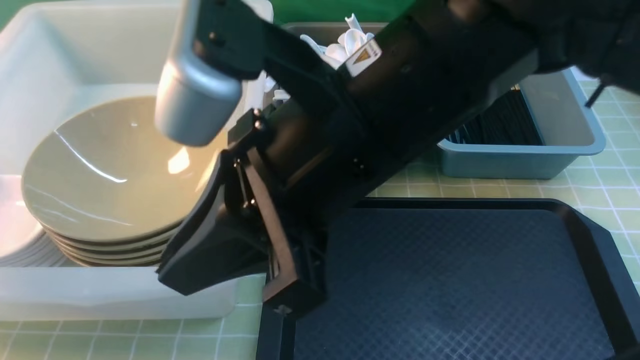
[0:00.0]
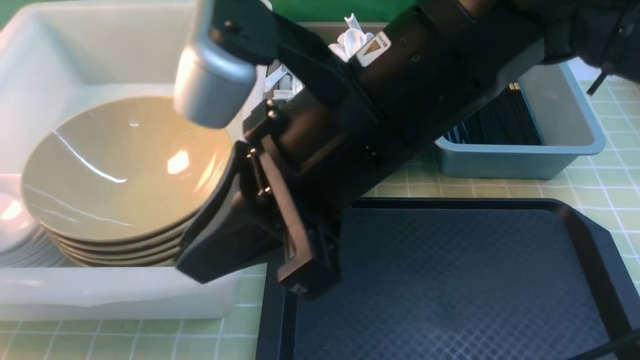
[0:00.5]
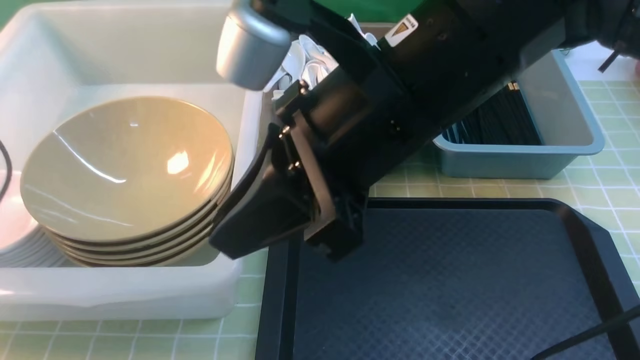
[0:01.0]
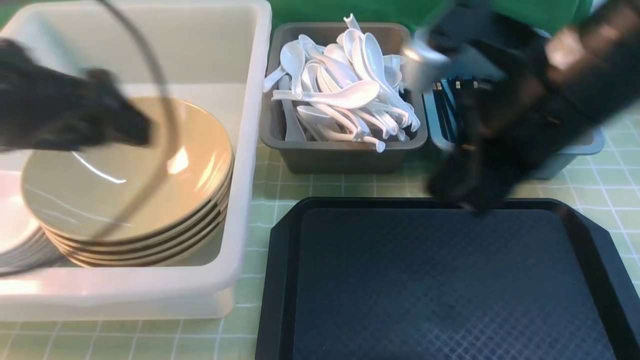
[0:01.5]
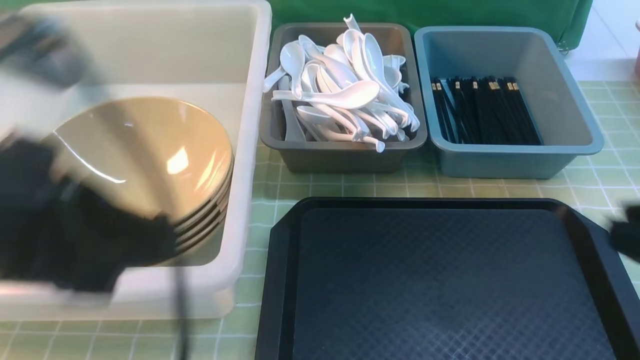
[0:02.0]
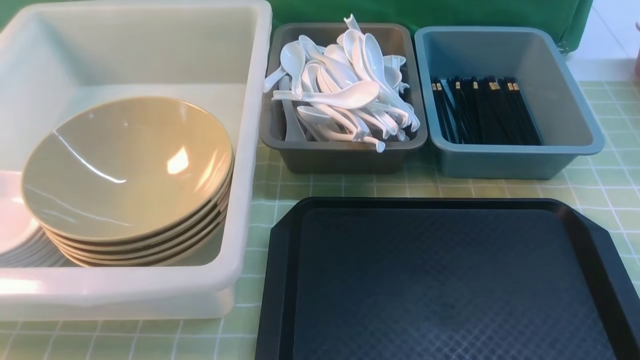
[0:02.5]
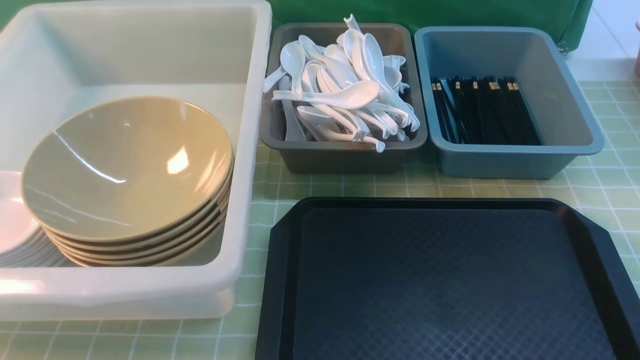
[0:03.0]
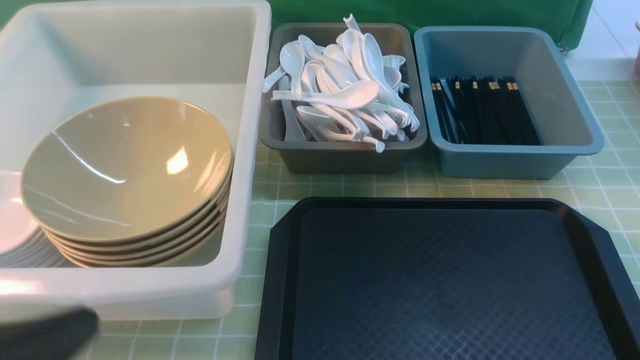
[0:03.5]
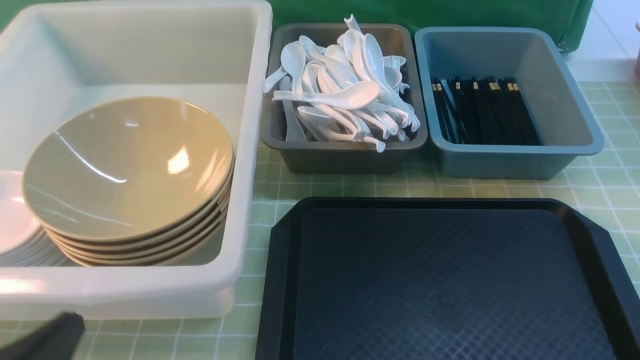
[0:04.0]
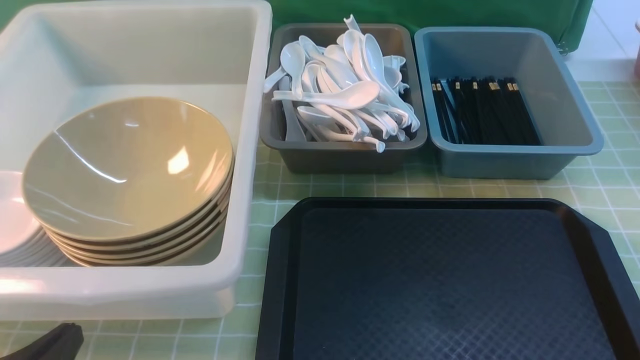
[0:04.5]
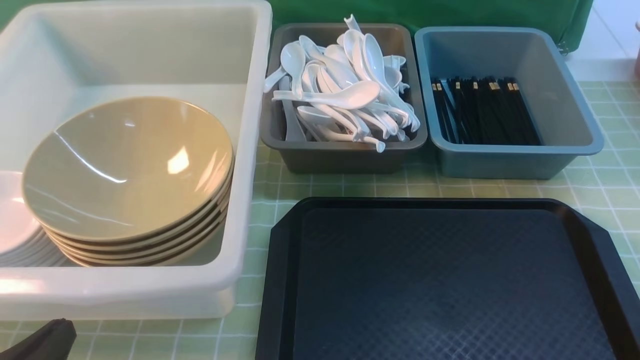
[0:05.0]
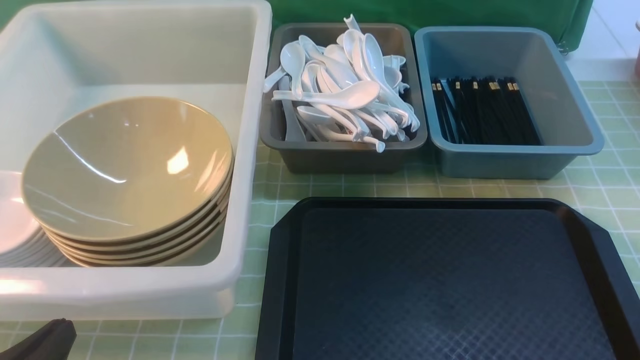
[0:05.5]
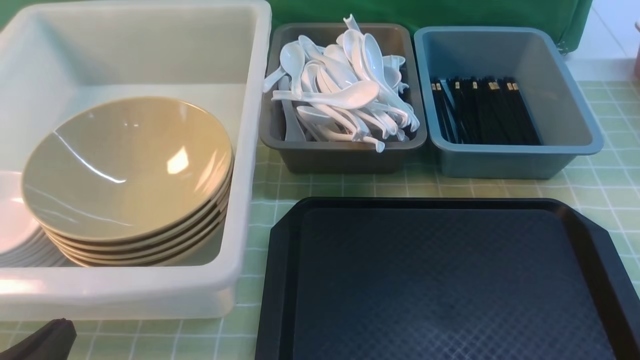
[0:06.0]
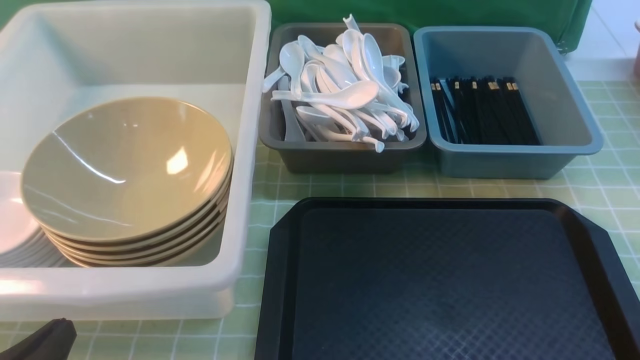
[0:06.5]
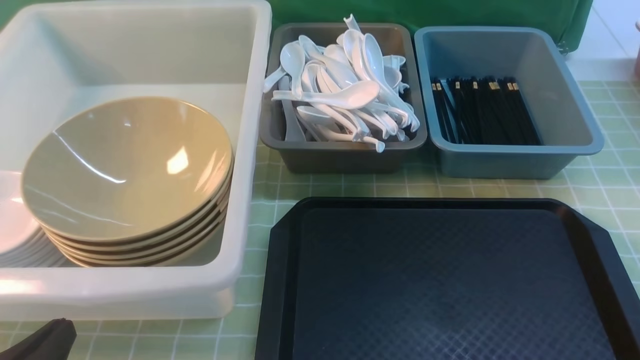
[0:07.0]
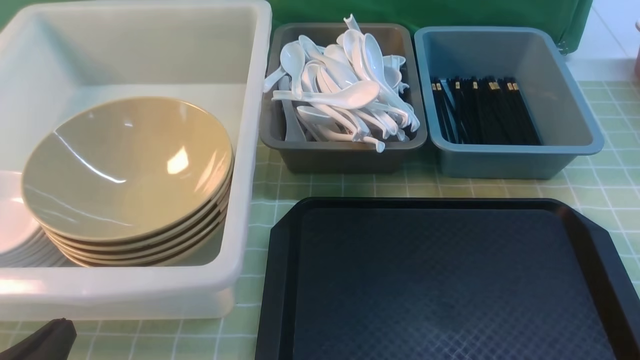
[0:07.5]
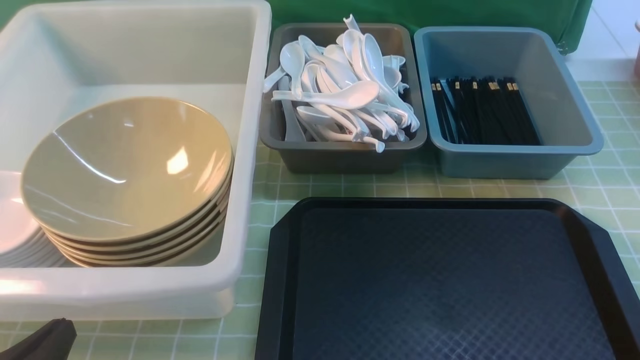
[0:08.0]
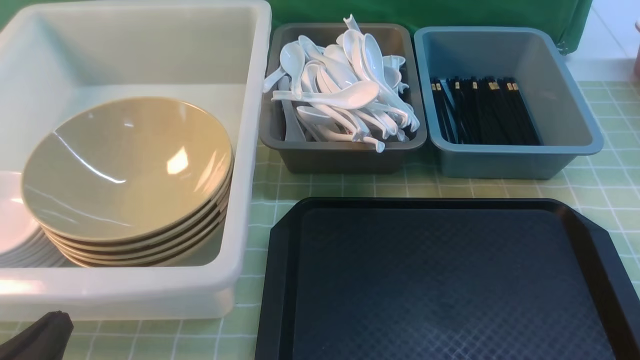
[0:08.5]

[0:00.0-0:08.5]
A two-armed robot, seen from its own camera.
Task of the whole recording: on green table put chopsticks spoon bowls plates into blue grey white boxes.
Step, 0:00.0 to 0:01.0: use the left arm to put the plate into the large storage box on the left.
0:00.0 to 0:02.0: Both grippers travel together to the right and backward, about 25 cm. The left gripper opens, then closes again.
0:02.0 to 0:04.0: The left gripper goes about 20 cm downward. The right gripper shifts approximately 10 cm downward and backward.
0:06.5 to 0:08.5: The two grippers keep their place.

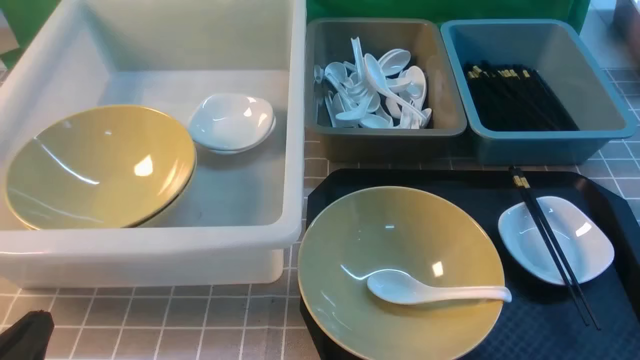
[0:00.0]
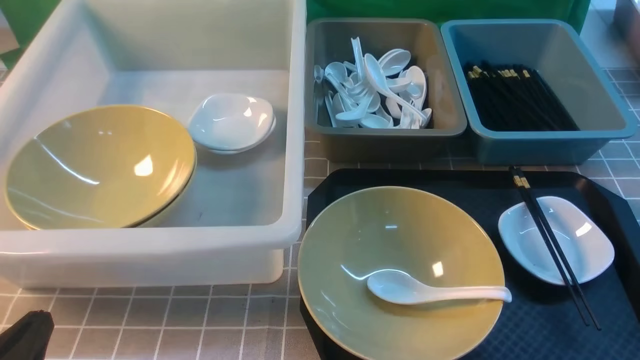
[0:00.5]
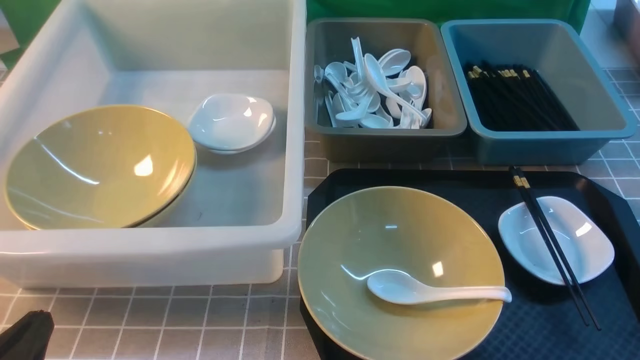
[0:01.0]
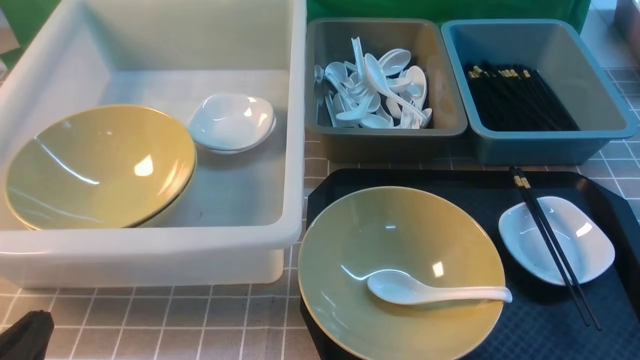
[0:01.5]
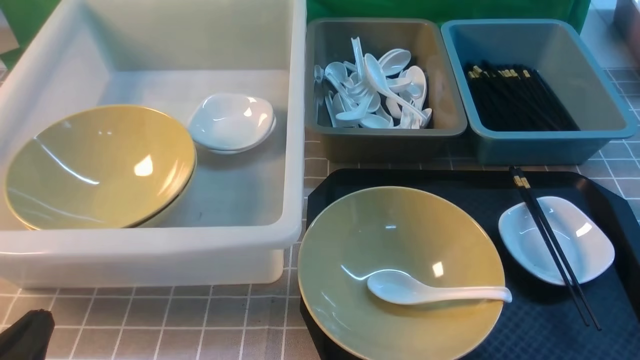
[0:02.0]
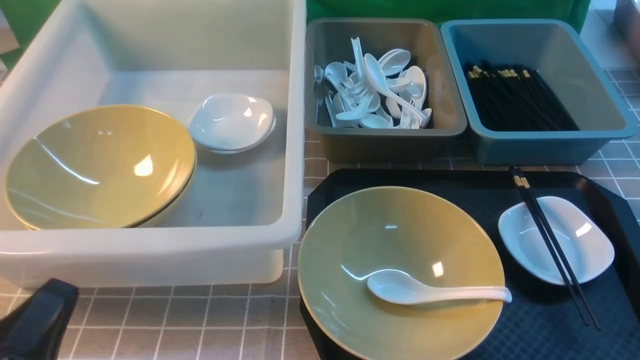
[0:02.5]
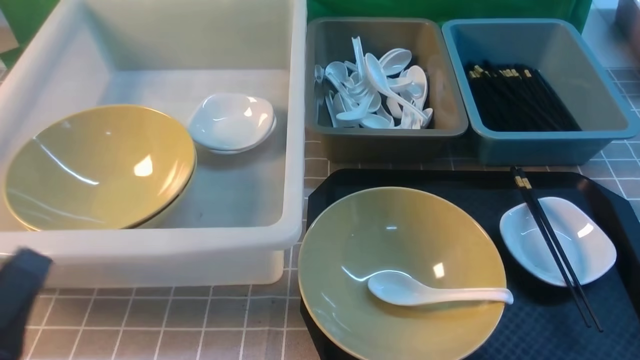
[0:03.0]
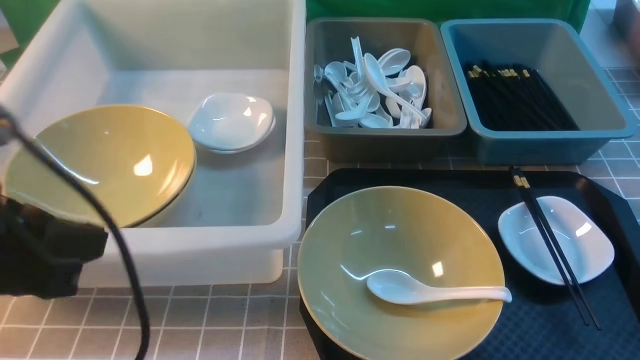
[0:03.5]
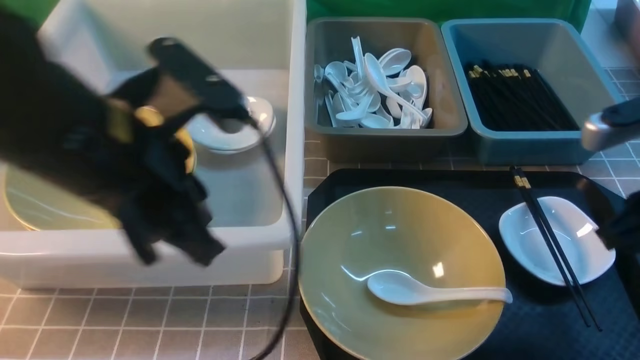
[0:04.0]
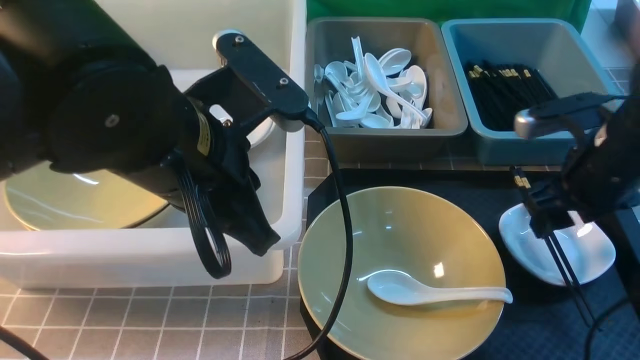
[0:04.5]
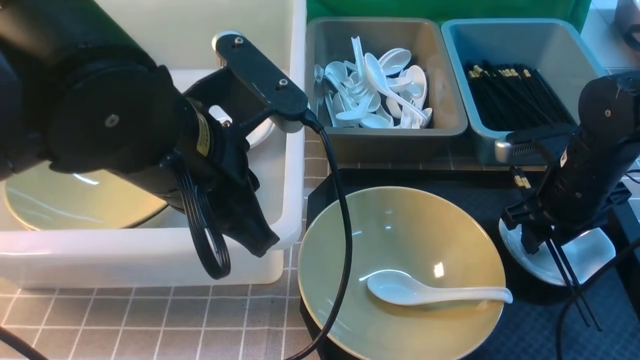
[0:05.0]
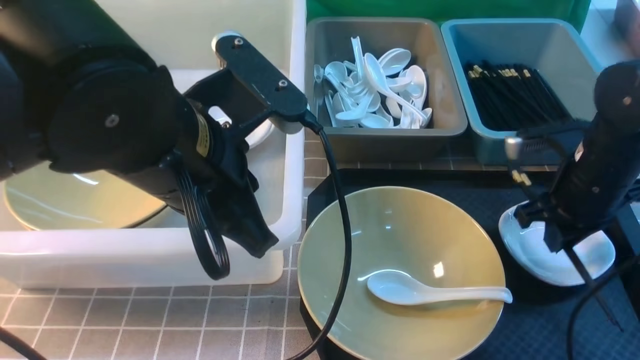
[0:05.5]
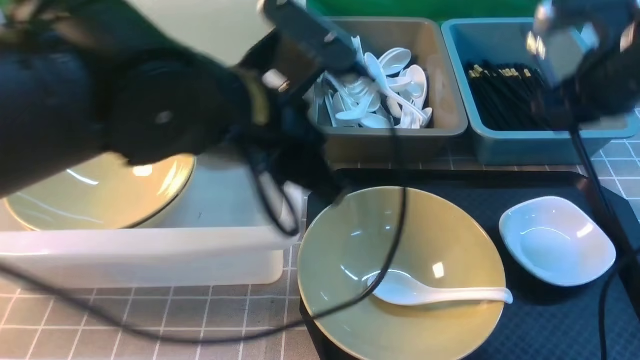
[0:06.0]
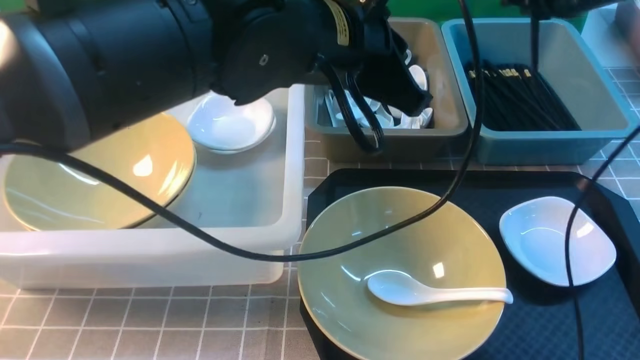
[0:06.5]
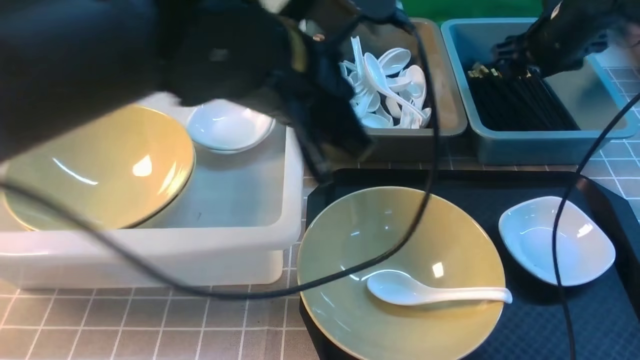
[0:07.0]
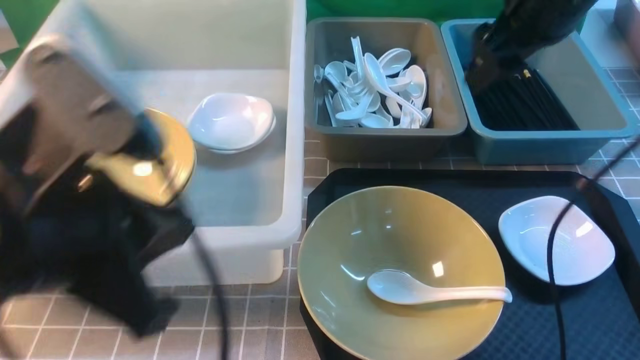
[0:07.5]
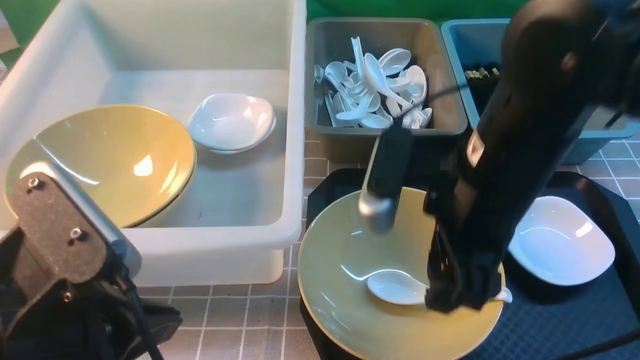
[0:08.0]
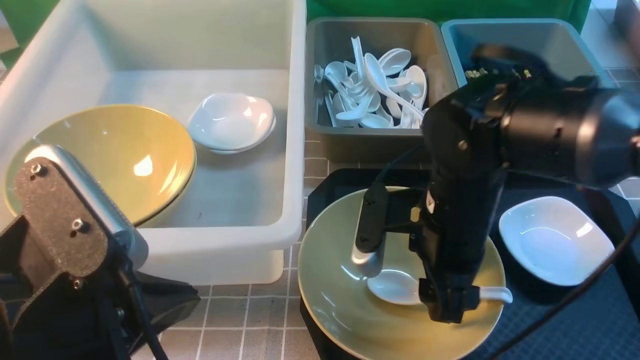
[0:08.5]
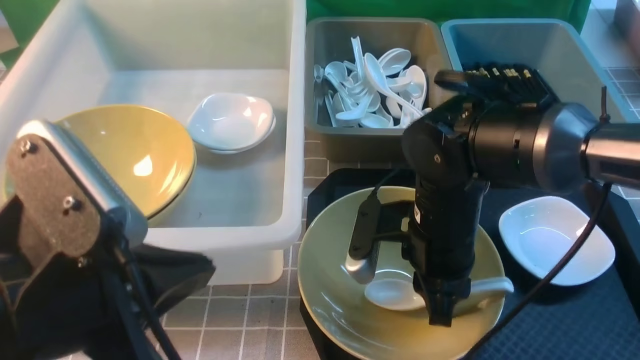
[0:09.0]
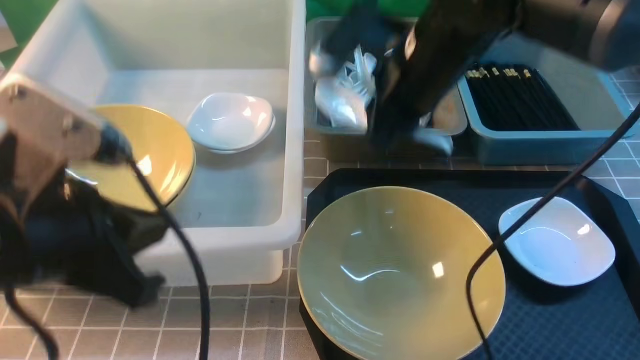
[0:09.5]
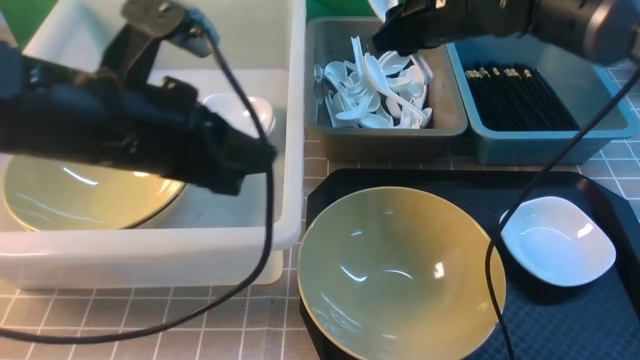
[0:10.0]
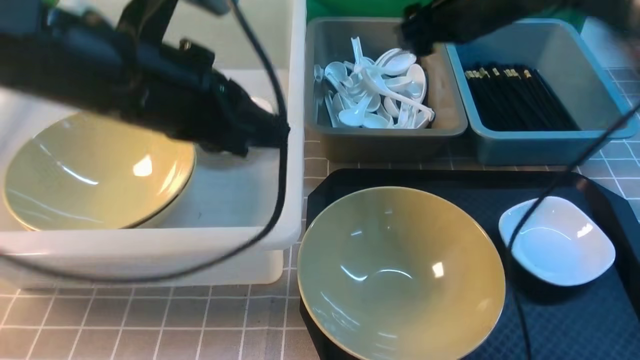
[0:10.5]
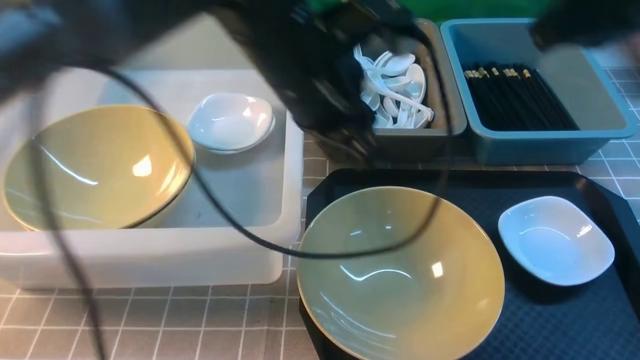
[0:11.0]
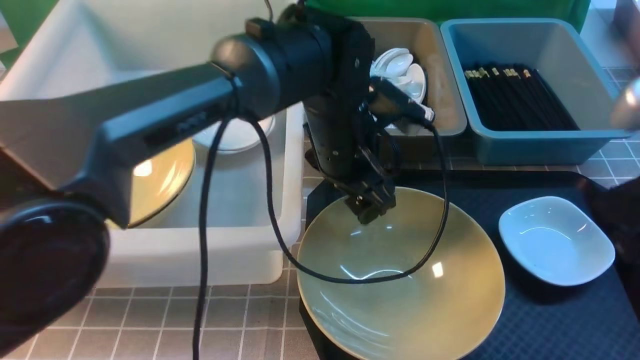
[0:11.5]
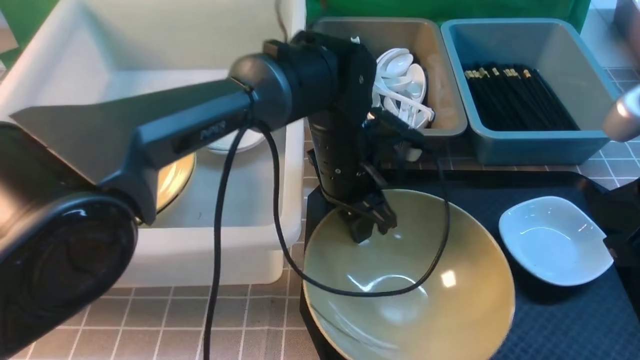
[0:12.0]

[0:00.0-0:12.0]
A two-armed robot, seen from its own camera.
Task of the whole recording: on grey table put chopsticks spoon bowls plates into blue grey white boxes.
Step, 0:00.0 to 0:05.0: use the right arm to grab the chopsticks.
Step, 0:05.5 to 0:07.0: use the right arm to put the chopsticks into the small storage box on the right.
Step, 0:07.5 to 0:09.0: use the right arm to grab the soup spoon in the middle.
Step, 0:09.5 to 0:10.0: use the right arm to put the soup spoon into the small storage box in the middle.
0:02.0 to 0:04.0: The right gripper moves forward and upward, about 20 cm; the left gripper goes about 25 cm upward, forward and to the right.
0:04.0 to 0:06.0: The left gripper travels to the right by about 10 cm, while the right gripper goes about 10 cm forward, moves about 10 cm downward and comes back, and opens and closes again.
0:06.0 to 0:08.0: The left gripper heads backward and to the left, covering approximately 20 cm. The right gripper shifts roughly 20 cm to the left and backward, and opens.
0:08.0 to 0:10.0: The left gripper travels forward by about 15 cm; the right gripper travels forward by approximately 20 cm, and closes its fingers.
0:10.0 to 0:12.0: The right gripper heads backward and to the right, covering roughly 30 cm, and closes. The left gripper goes about 25 cm to the right, downward and forward, and opens.
